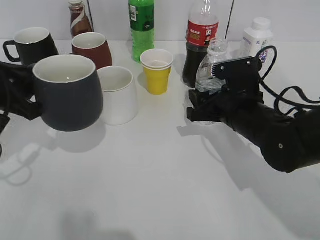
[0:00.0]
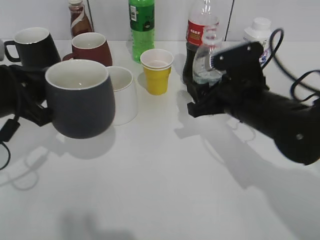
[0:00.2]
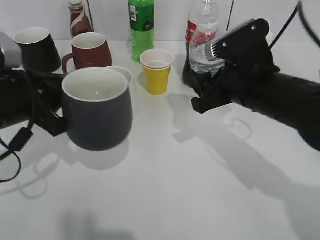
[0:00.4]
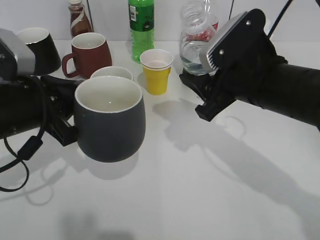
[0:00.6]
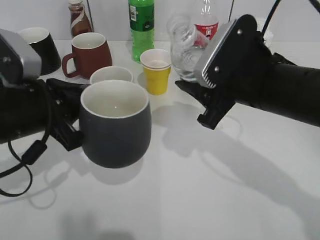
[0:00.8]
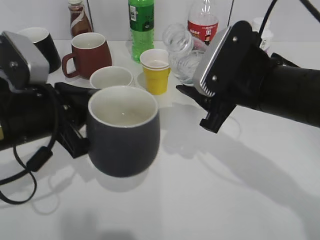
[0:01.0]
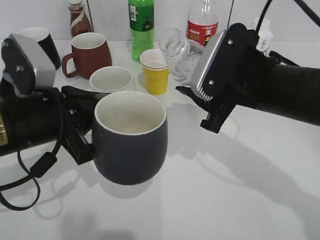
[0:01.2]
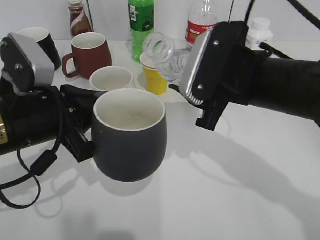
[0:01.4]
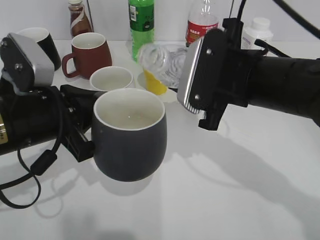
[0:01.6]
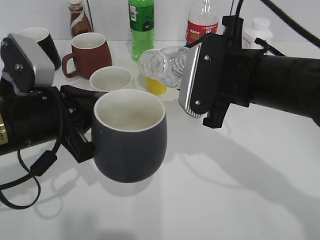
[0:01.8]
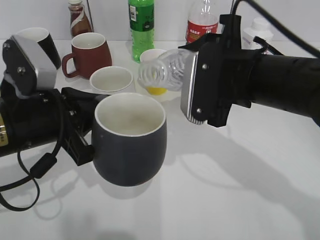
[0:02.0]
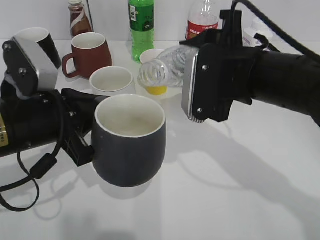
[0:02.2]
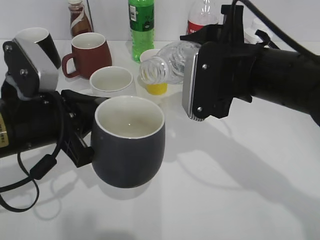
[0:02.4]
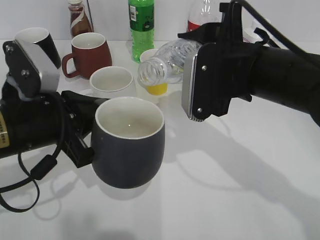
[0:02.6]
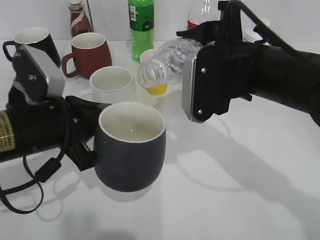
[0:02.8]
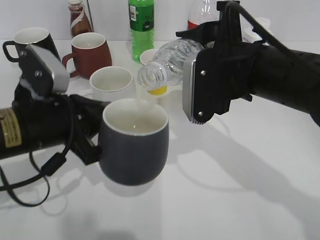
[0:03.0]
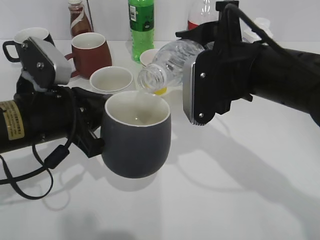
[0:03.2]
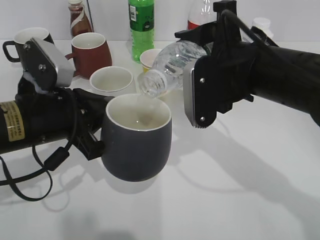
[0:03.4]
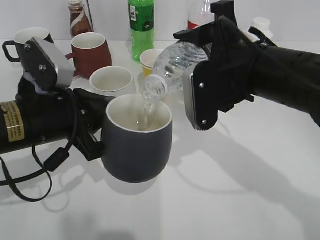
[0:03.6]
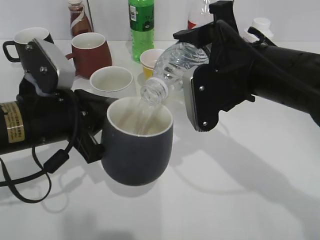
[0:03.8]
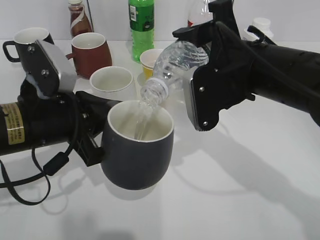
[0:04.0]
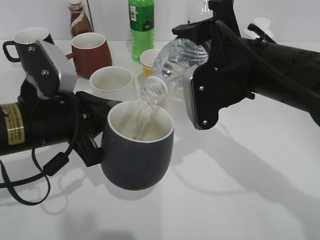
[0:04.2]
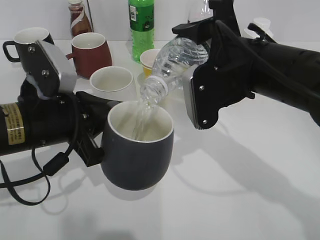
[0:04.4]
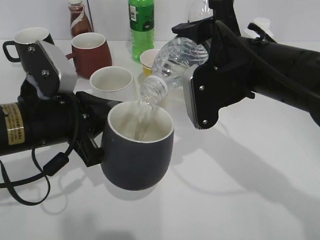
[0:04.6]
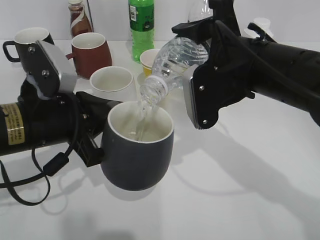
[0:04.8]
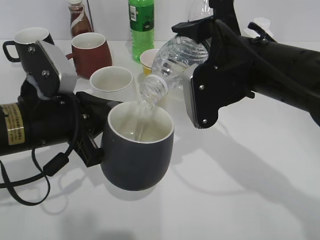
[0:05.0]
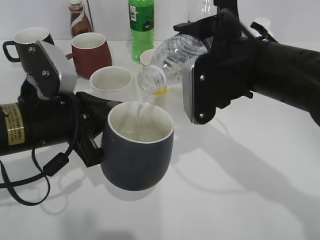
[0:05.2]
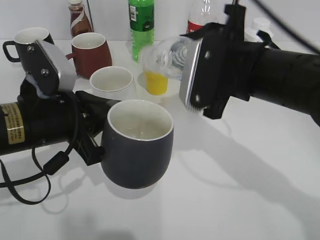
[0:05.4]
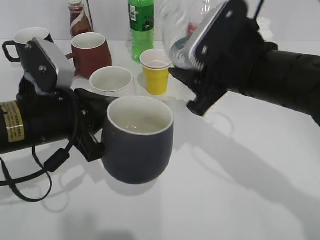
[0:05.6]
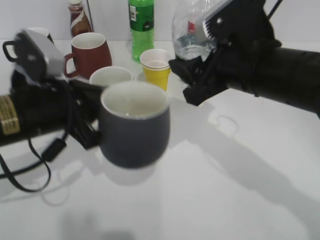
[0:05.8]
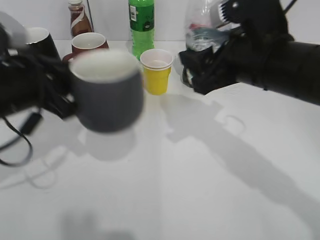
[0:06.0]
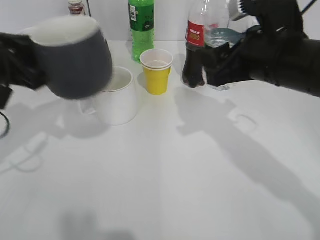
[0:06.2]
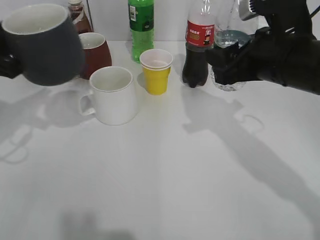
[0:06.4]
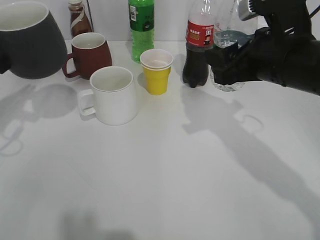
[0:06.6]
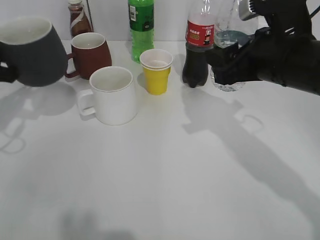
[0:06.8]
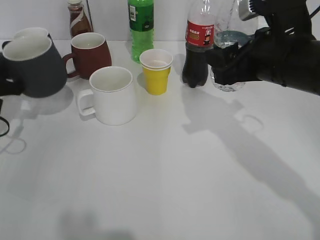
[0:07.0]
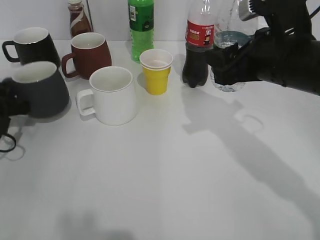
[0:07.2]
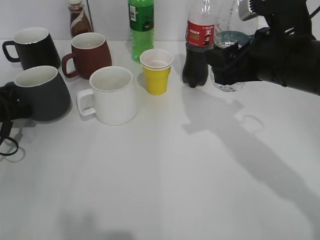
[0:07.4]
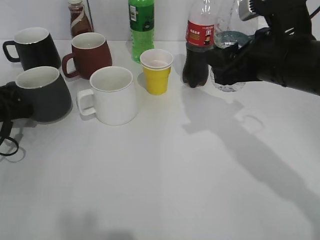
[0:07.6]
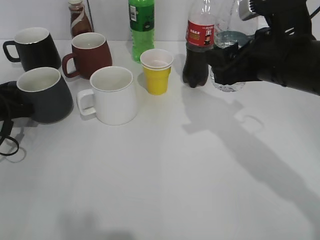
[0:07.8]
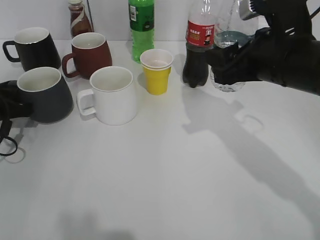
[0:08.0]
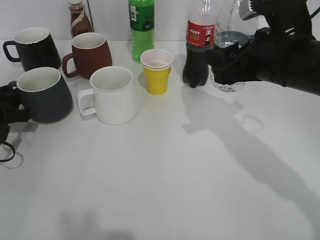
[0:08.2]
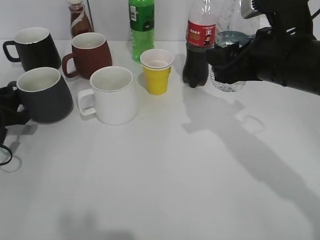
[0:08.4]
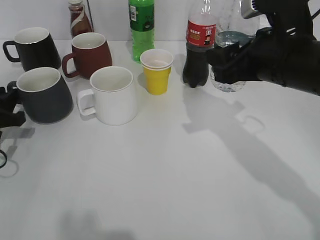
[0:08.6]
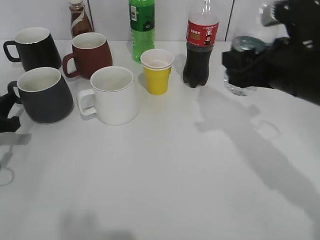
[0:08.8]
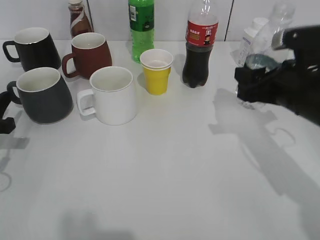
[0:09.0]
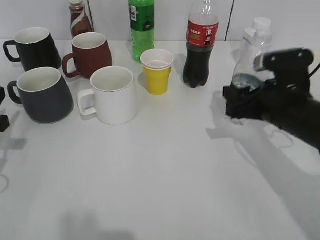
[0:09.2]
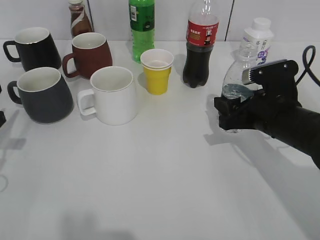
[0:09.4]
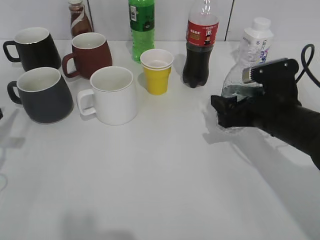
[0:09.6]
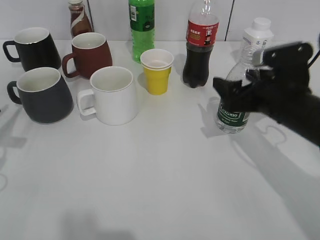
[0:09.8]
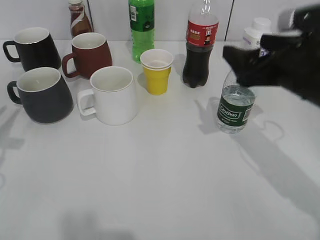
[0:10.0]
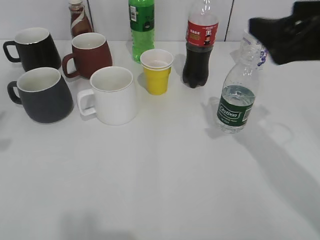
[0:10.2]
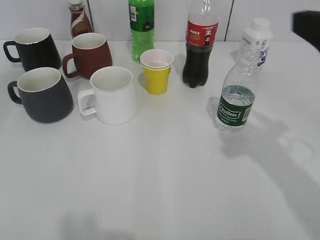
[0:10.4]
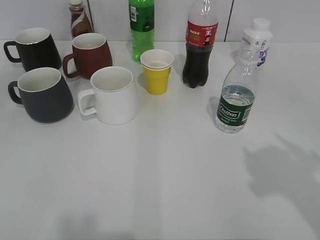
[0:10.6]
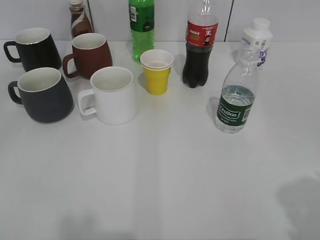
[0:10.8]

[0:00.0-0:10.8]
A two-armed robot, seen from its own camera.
Step, 0:00.0 to 0:05.8: Pour the water from bottle to cup with right gripper.
Step, 0:06.2 to 0:08.6: Place the black cup on the table with left gripper.
Step, 0:08.8 to 0:09.8: Place the water bottle on the table with right gripper.
0:00.0 to 0:01.6: The right gripper shifts approximately 10 cm upward. The left gripper goes some 10 cm to the right.
0:03.0 to 0:04.6: The grippers move only a little.
0:04.6 to 0:06.2: The left gripper travels to the left by about 5 cm.
0:06.2 to 0:07.8: The left gripper heads downward, to the left and forward, covering roughly 15 cm.
0:07.8 to 0:09.2: The left gripper heads backward, covering some 5 cm. Meanwhile the right gripper moves downward, some 10 cm.
0:09.2 to 0:10.8: Both grippers move backward and upward, approximately 25 cm. The left gripper opens; the right gripper opens up.

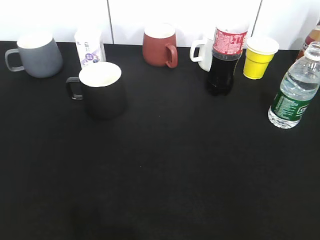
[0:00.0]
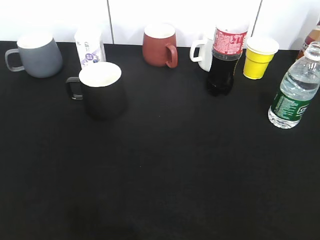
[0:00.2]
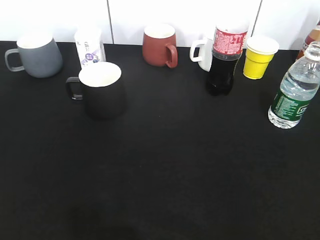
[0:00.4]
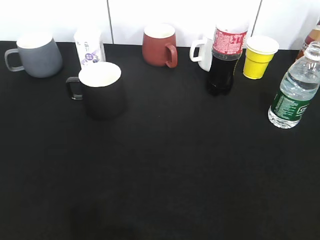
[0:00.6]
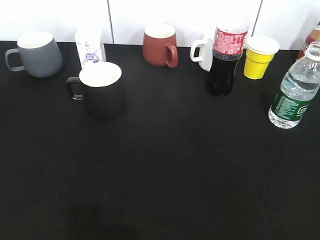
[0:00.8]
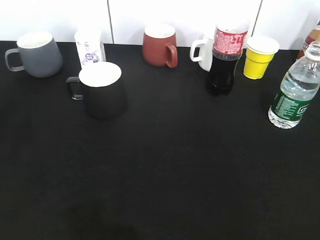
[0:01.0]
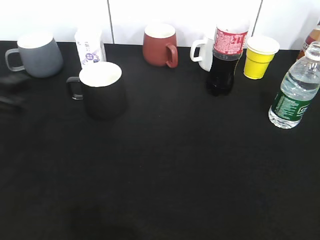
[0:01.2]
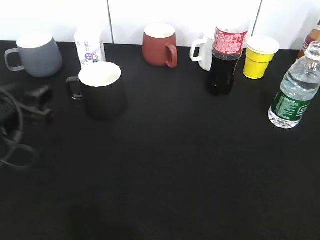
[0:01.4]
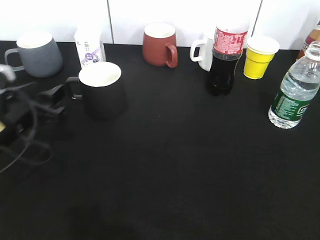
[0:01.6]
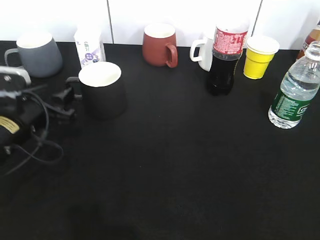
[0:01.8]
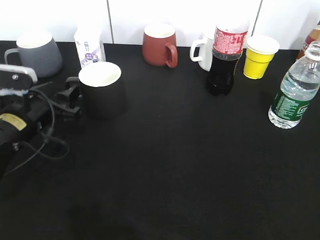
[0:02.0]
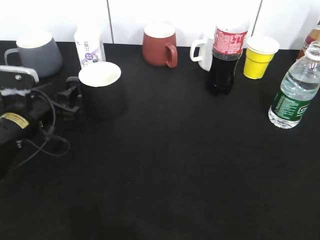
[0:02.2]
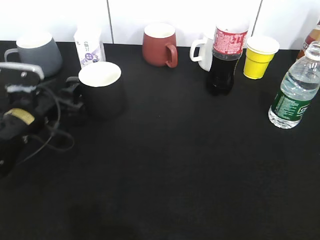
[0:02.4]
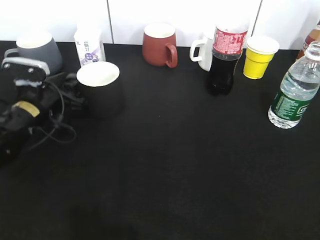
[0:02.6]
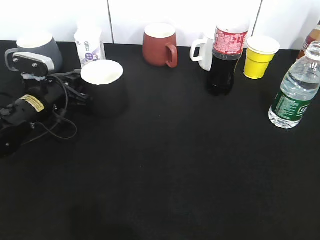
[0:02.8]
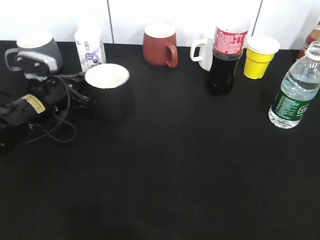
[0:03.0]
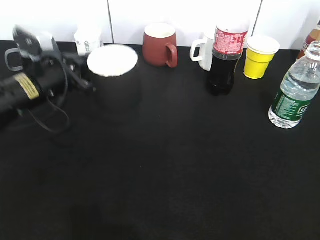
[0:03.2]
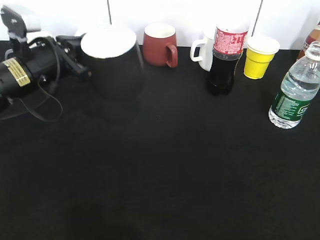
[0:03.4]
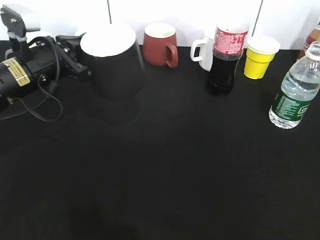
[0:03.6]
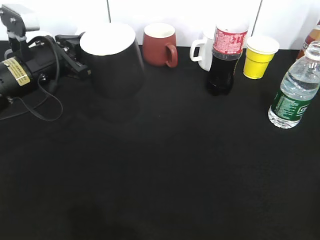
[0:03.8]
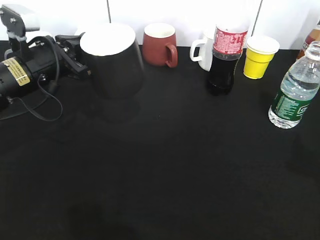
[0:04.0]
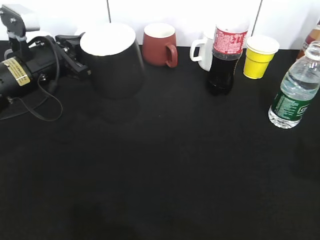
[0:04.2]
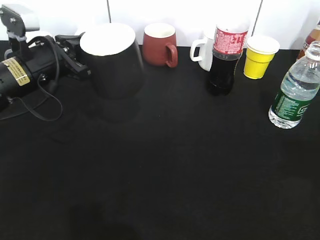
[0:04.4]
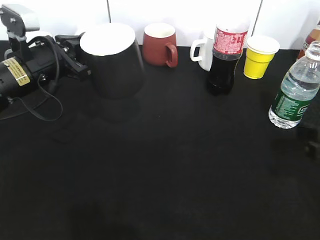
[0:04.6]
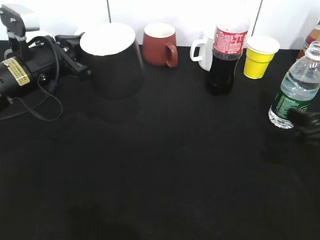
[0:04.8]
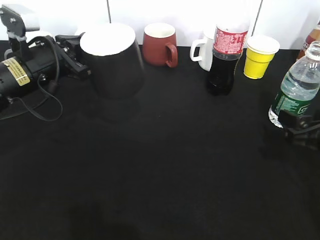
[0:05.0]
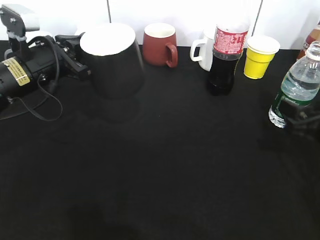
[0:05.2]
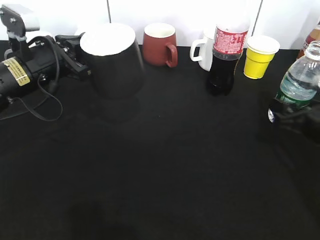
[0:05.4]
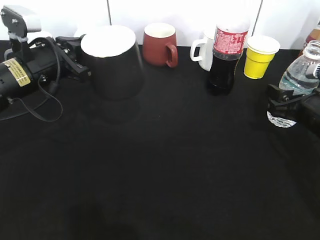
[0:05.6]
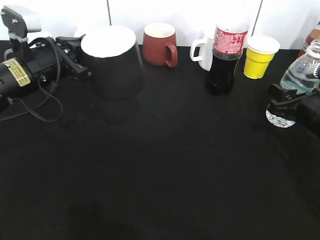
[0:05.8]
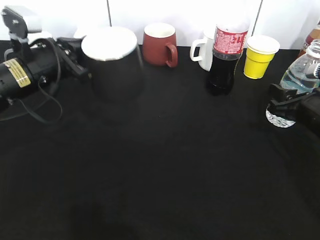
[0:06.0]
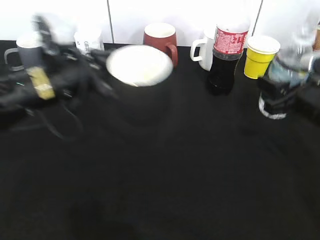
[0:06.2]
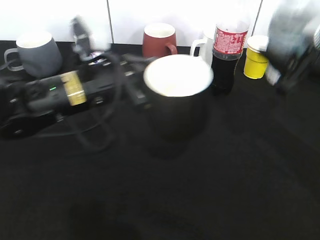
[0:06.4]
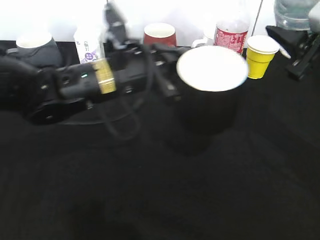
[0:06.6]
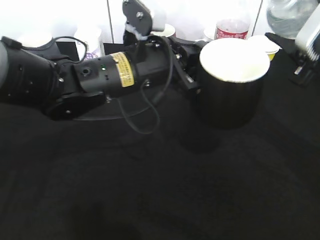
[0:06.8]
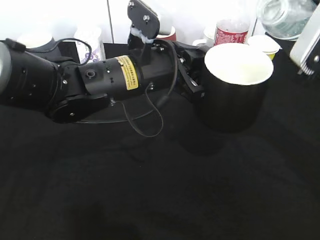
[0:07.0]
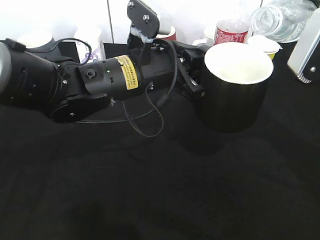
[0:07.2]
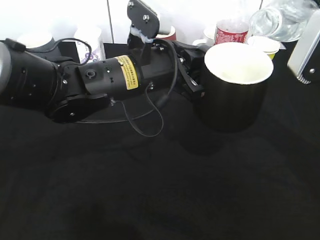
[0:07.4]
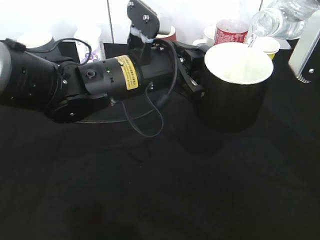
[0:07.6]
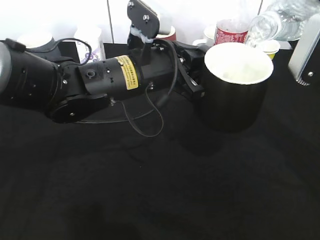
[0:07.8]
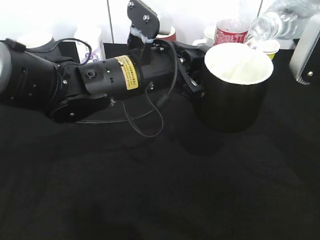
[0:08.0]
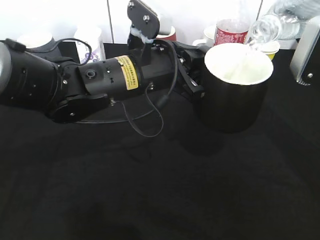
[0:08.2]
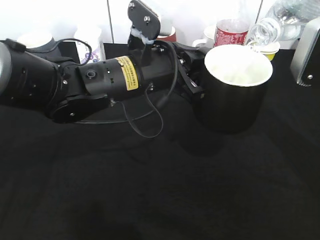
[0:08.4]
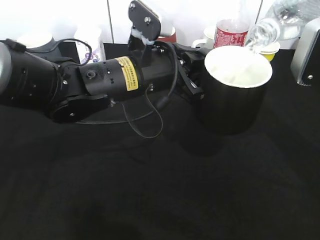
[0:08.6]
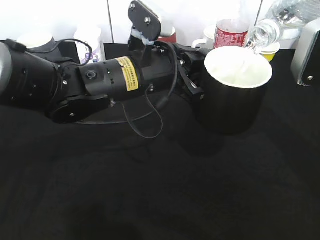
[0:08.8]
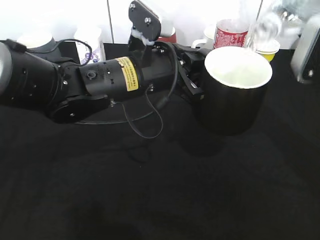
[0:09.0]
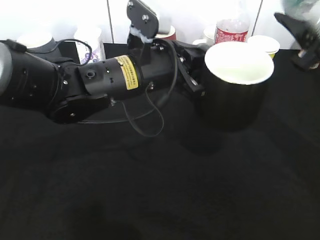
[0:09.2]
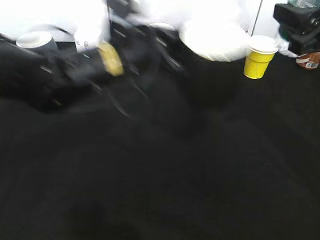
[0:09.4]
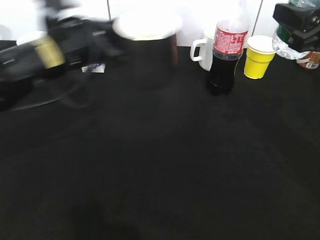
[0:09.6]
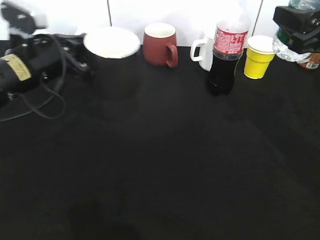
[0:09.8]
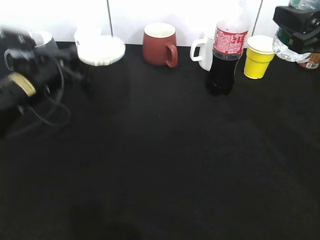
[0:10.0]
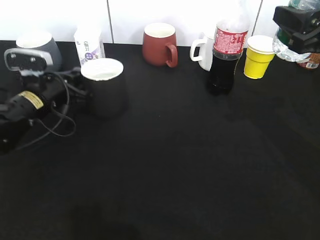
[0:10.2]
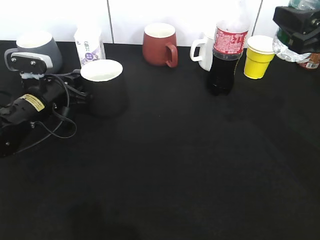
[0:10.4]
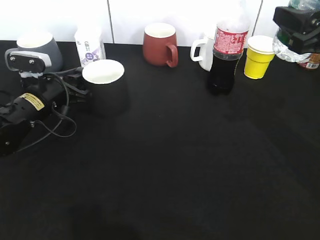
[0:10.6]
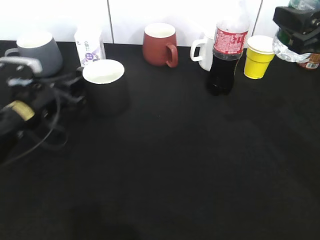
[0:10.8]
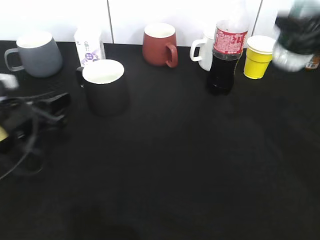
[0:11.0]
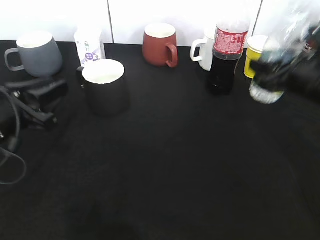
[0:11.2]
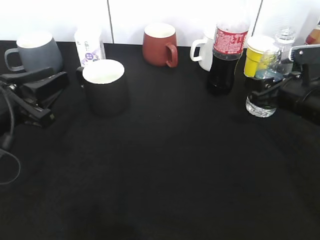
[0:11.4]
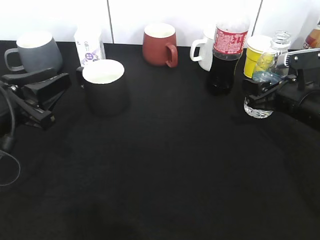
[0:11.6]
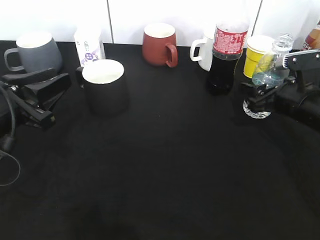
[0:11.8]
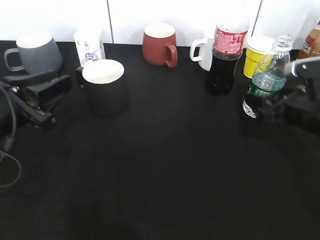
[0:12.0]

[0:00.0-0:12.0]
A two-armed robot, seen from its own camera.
Step, 0:00.0 to 0:02.8: Grasp the black cup with left gripper.
Step, 0:03.0 to 0:03.4: Lift the black cup with left gripper.
Step, 0:03.8 to 0:05.6: Grasp the bottle with water with right gripper.
Step, 0:05.8 to 0:09.2: Pour the water from bottle to cup with right gripper.
Step, 0:09.4 to 0:10.8: Place the black cup on the table with left gripper.
0:00.0 to 0:01.6: The left gripper heads forward and downward, covering approximately 30 cm.
0:01.6 to 0:03.0: The left gripper is displaced forward by approximately 10 cm, and closes.
0:03.0 to 0:04.4: The right gripper travels forward and downward by some 20 cm. Meanwhile the left gripper is displaced upward by roughly 10 cm.
0:04.4 to 0:06.0: The right gripper moves forward and downward, roughly 15 cm, and closes.
0:06.0 to 0:07.6: The left gripper shifts some 15 cm to the right; the right gripper shifts approximately 15 cm upward.
0:07.6 to 0:09.0: The grippers stay close to where they were, moving slightly.
0:09.0 to 0:10.4: The left gripper travels to the left and downward by approximately 20 cm.
0:10.4 to 0:12.0: The left gripper goes roughly 15 cm backward and upward, and opens. The right gripper moves downward, some 15 cm, and opens up.
